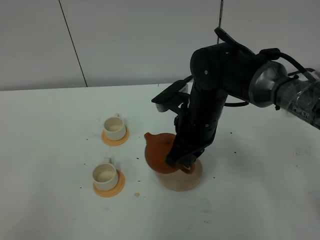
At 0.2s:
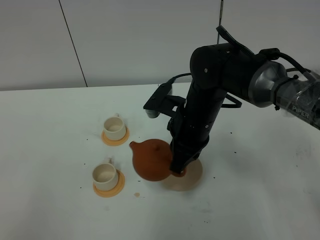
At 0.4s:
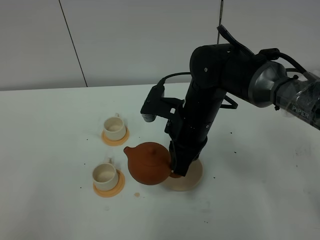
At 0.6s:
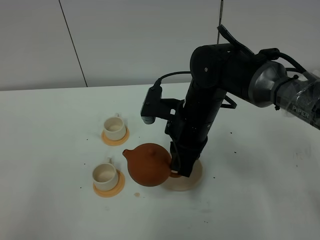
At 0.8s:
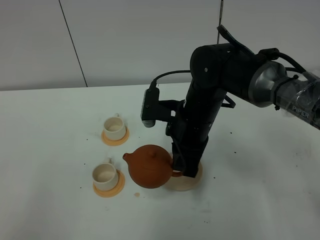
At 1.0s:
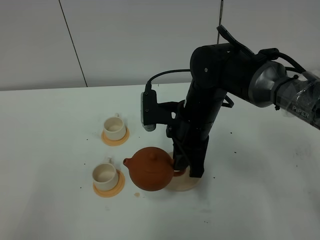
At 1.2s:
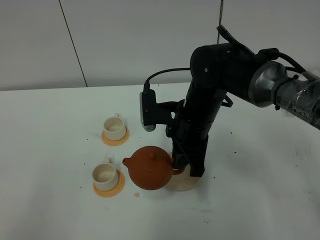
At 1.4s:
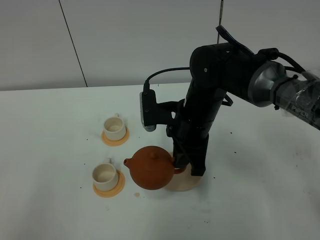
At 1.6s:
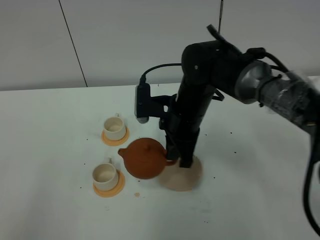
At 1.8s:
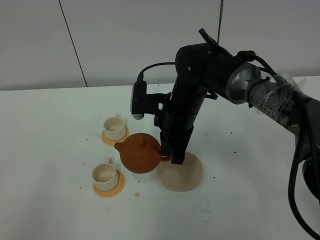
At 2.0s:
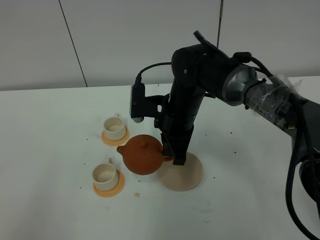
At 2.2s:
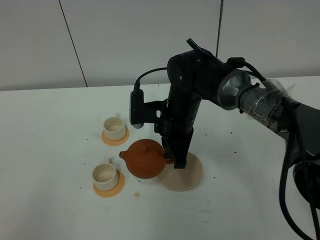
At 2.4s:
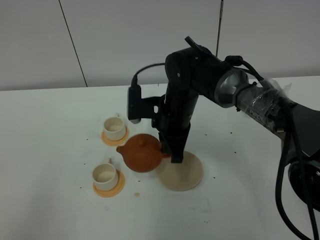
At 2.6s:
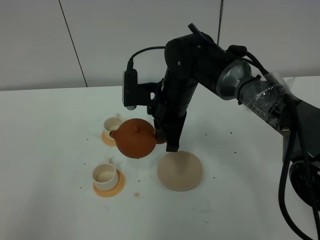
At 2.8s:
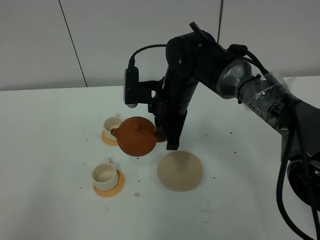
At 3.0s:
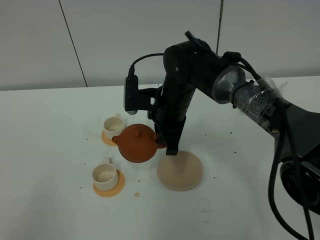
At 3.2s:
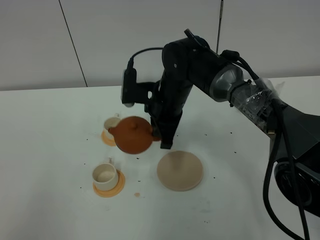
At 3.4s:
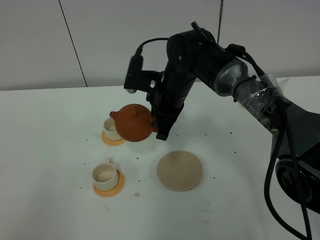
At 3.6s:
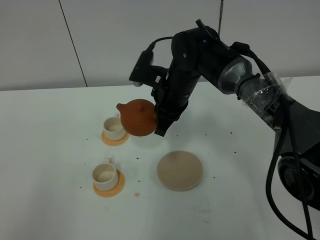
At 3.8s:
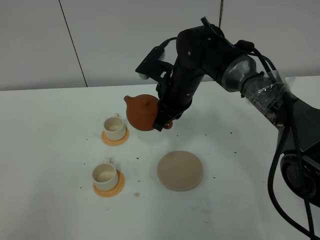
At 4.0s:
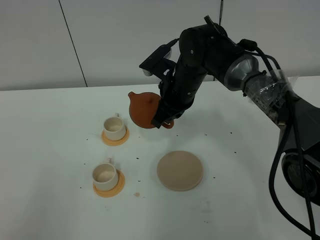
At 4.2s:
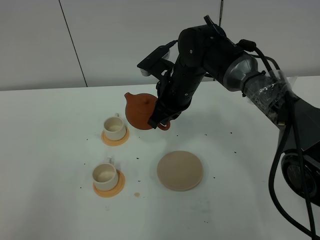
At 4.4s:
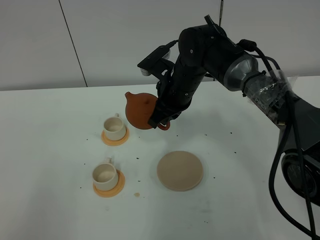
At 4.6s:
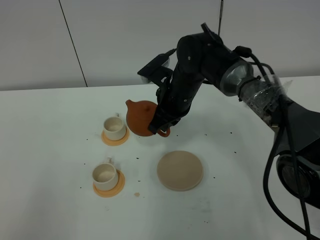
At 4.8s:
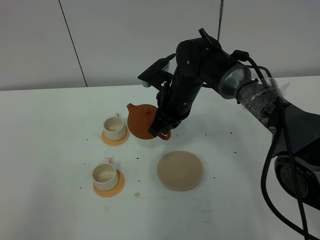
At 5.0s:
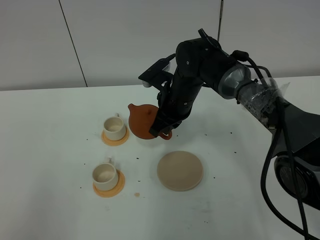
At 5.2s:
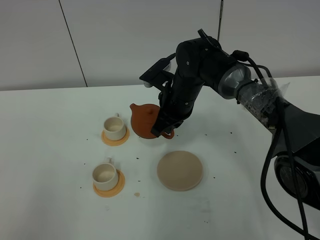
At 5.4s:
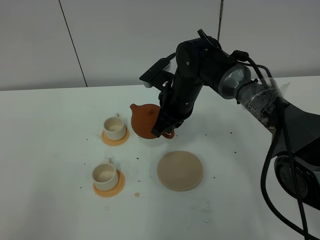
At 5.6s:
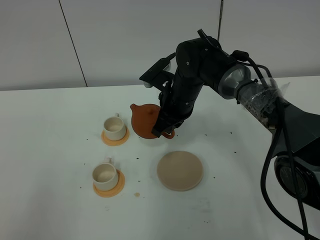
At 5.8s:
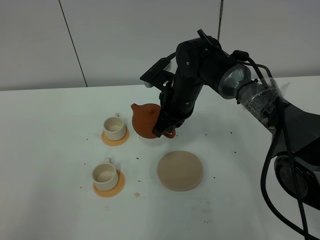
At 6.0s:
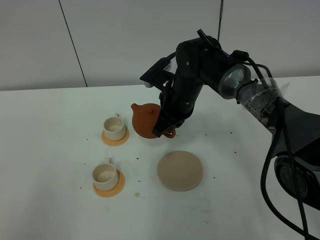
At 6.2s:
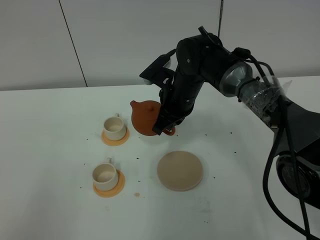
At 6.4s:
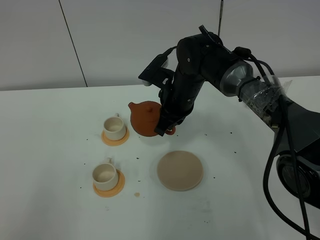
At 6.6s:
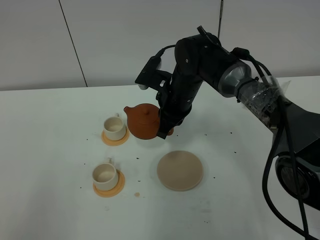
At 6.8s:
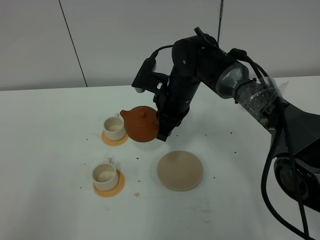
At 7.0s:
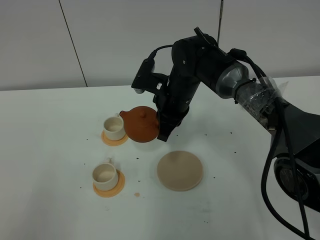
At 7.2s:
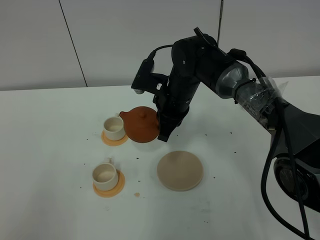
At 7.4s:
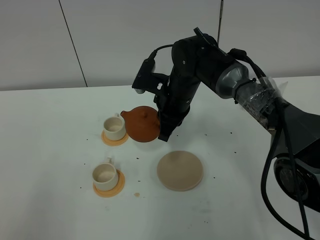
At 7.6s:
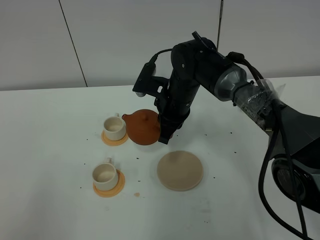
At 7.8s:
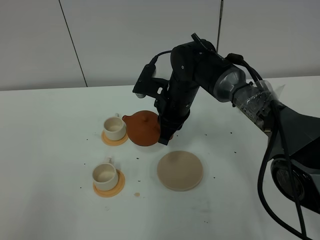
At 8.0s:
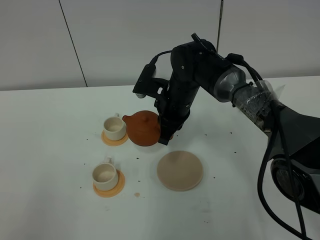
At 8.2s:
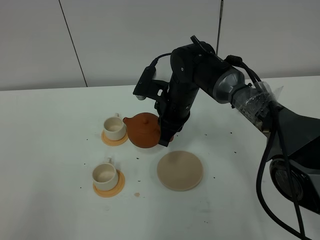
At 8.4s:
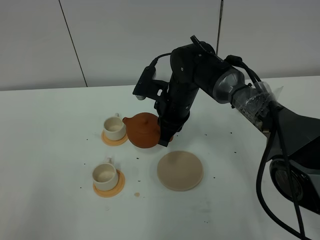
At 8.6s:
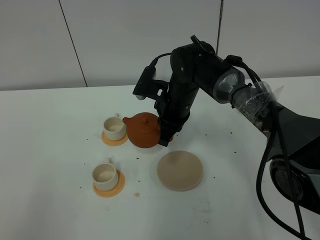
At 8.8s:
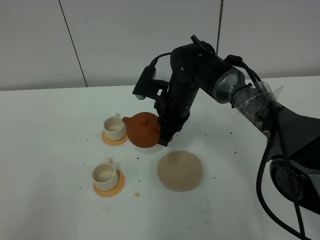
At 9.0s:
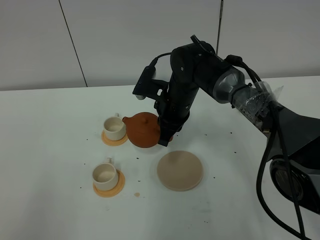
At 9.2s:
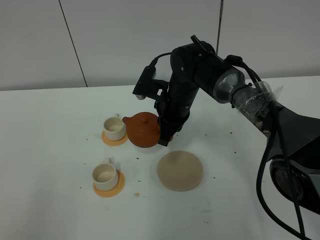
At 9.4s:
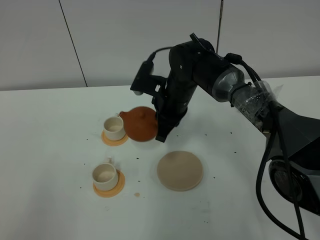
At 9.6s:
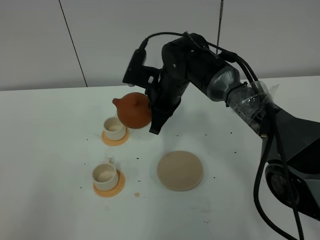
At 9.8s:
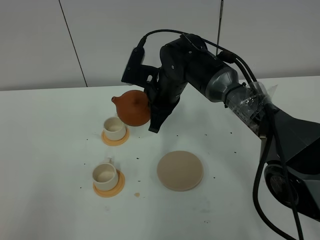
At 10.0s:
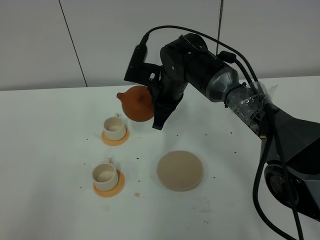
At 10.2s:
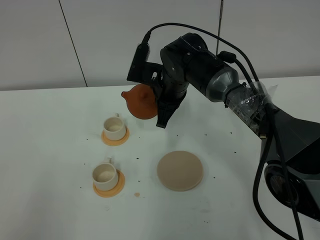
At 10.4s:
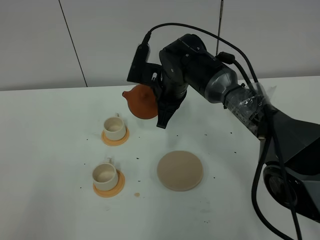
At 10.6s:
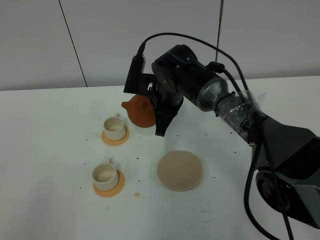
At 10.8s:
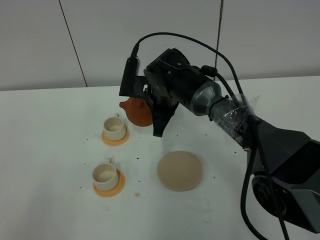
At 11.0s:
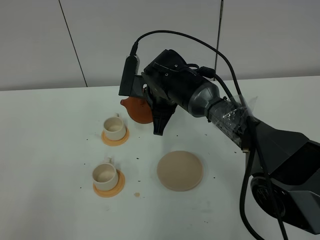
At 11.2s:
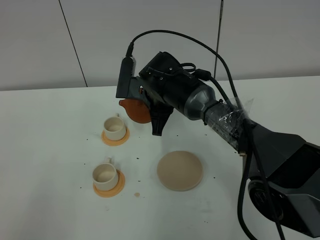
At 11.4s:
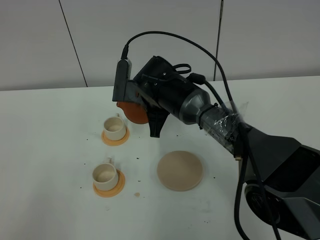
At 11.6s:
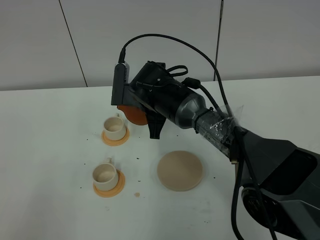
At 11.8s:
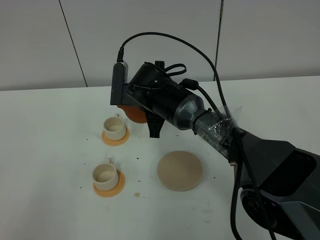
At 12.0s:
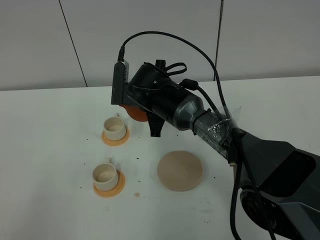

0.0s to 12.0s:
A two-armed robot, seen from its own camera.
Task of the whole recording: grasp the brown teapot and pour the tea into the two white teacups one by one, put the brown teapot back in its original place.
1.6s to 3.0s: The grippers make only small movements.
4.4s to 7.6s: The grippers move only a little.
7.6s to 9.0s: The two grippers keep their place.
9.0s to 10.4s: The grippers move only a little.

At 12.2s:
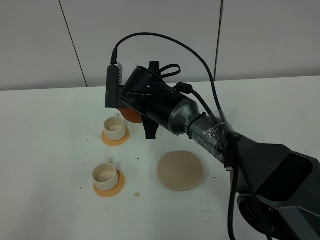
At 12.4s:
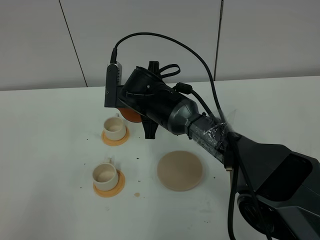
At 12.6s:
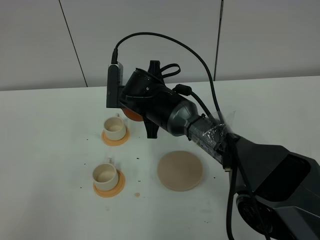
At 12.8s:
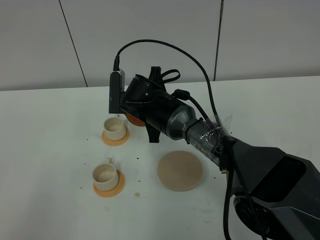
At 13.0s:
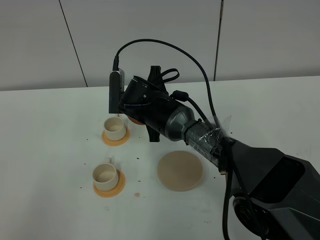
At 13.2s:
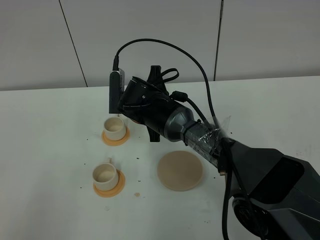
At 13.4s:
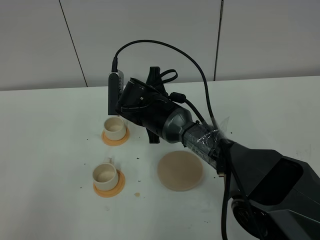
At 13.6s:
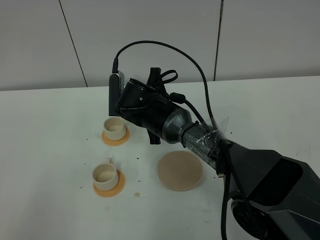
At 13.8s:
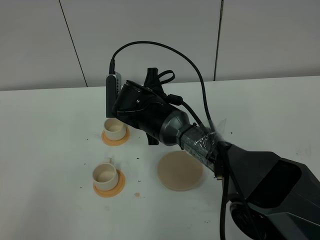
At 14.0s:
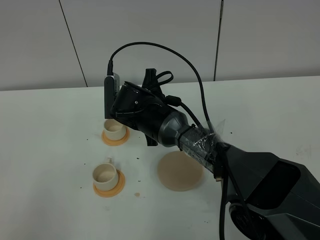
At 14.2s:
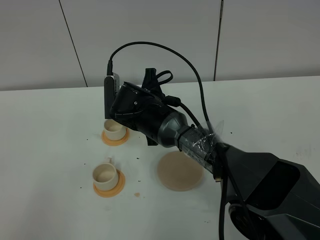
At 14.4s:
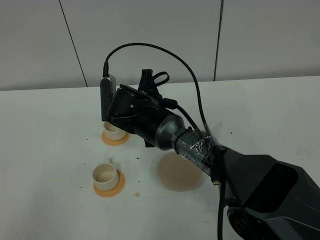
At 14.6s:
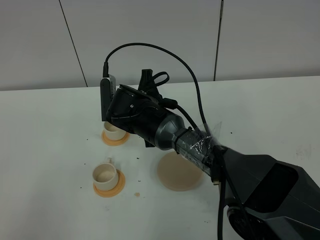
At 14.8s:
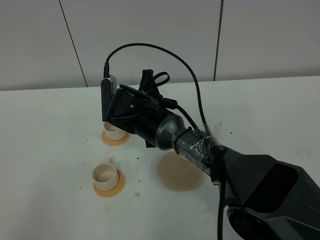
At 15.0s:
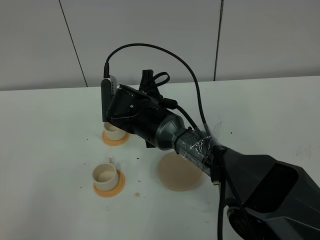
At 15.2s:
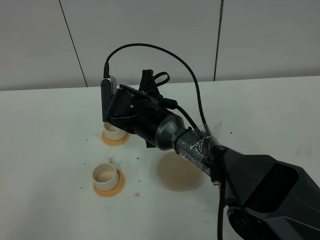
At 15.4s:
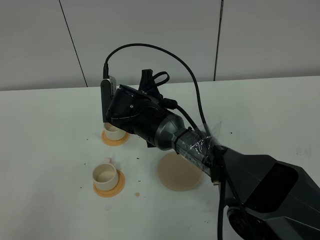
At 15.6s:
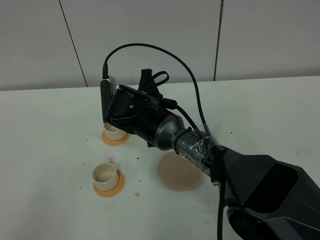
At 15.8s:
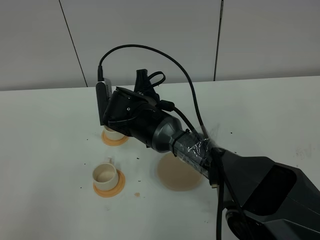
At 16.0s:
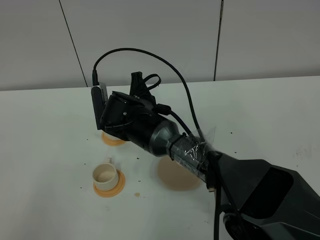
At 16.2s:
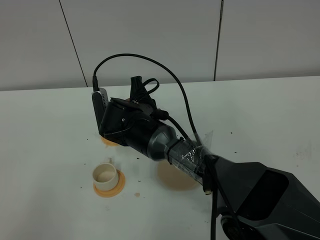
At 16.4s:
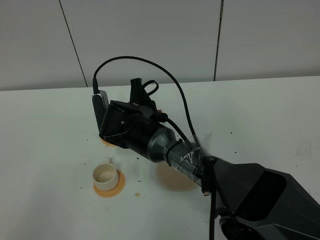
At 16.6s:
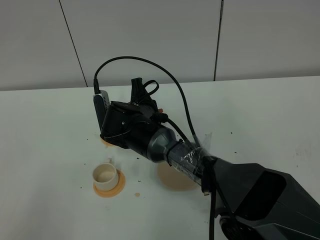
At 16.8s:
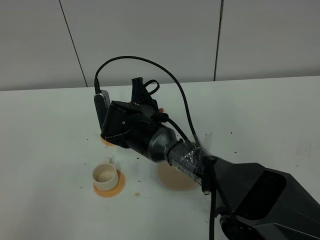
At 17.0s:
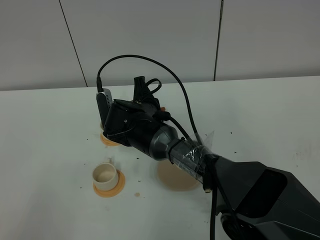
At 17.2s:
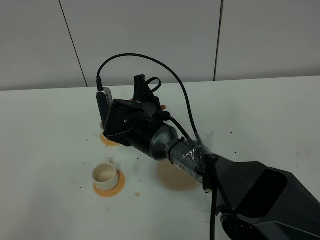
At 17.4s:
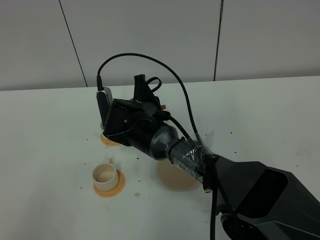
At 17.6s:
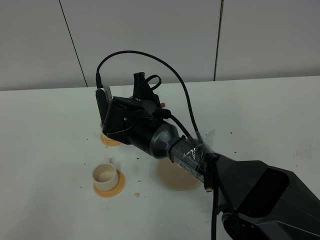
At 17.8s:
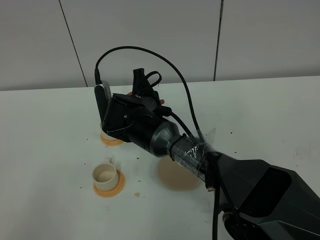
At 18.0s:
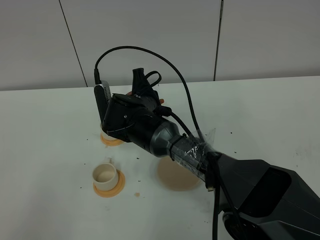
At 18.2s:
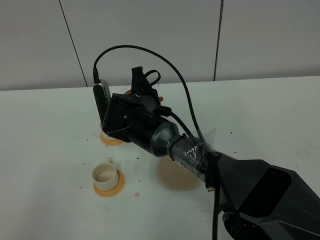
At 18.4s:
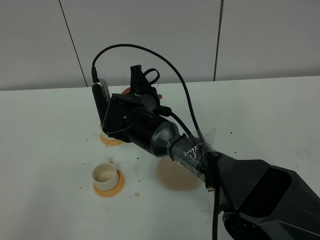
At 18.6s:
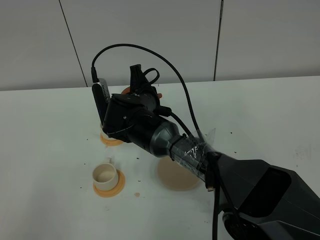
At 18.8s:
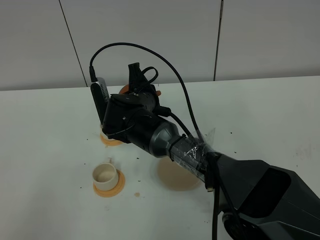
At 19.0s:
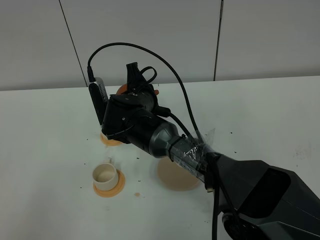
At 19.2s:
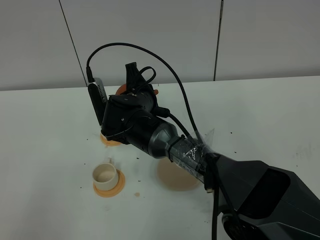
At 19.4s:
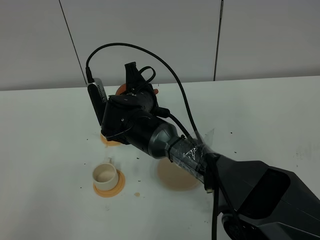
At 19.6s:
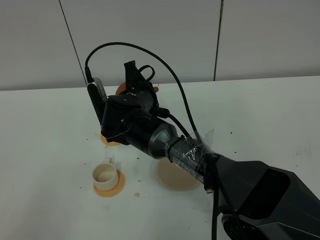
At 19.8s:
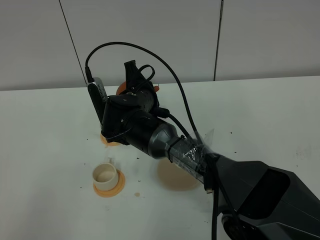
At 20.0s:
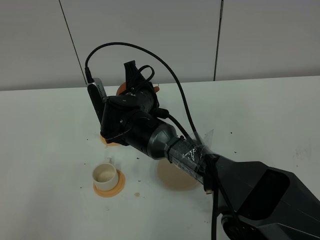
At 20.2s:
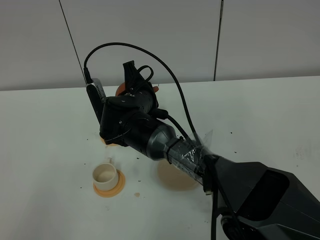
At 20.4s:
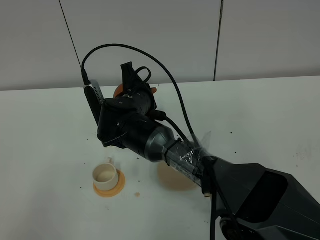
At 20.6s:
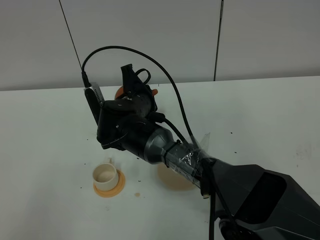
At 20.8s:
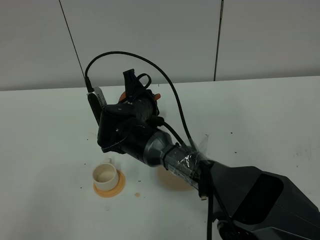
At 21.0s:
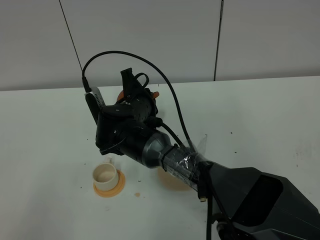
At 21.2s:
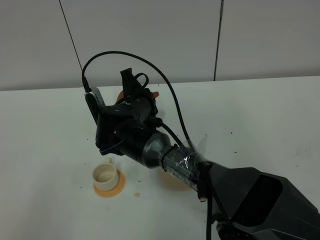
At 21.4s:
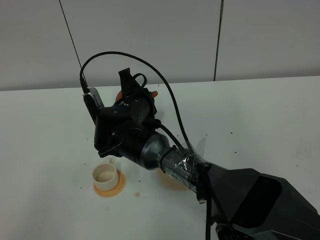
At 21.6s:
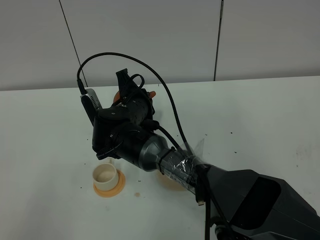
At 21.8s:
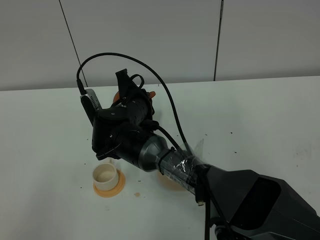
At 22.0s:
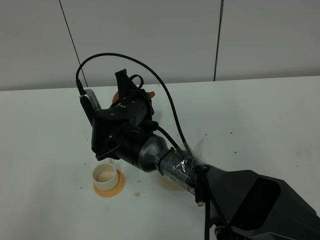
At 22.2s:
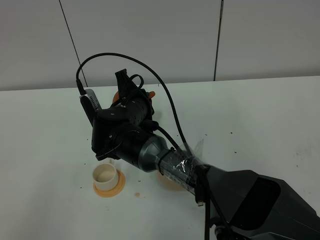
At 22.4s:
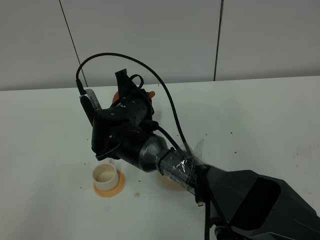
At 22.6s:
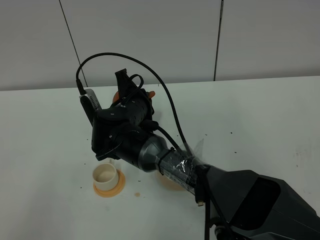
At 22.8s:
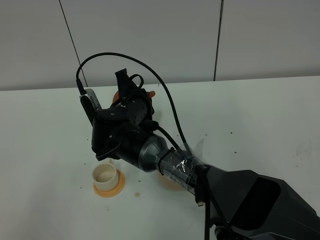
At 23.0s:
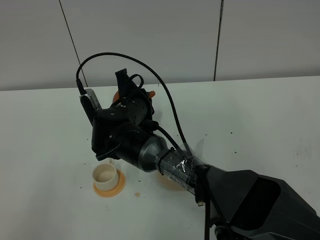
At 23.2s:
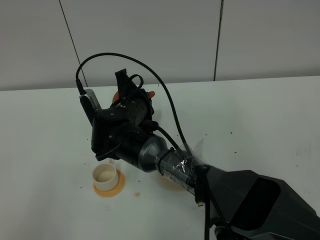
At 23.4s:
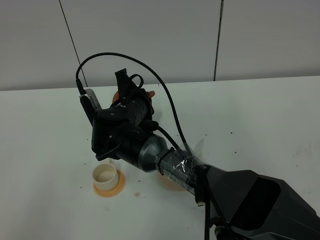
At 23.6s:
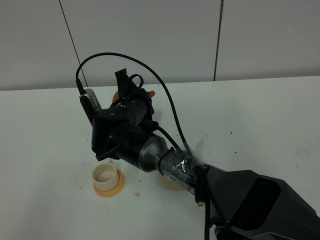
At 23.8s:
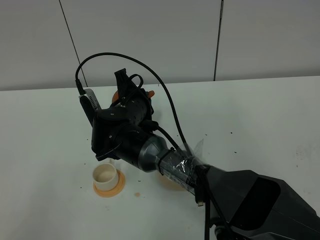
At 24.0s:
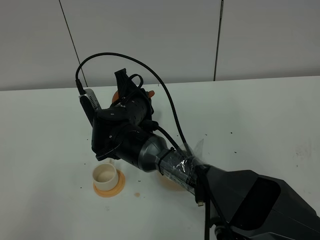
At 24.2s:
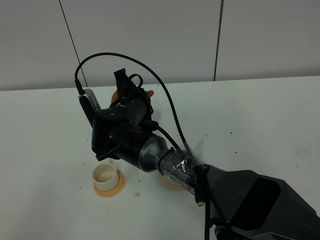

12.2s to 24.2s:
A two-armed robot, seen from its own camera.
Task of the whole recording: grasp the brown teapot and pour the tea into the two white teacups one by one, put the brown teapot back in its original place.
12.2s to 13.8s: The grippers stay close to where they were, moving slightly.
13.8s to 15.2s: Both grippers stay about where they are.
15.2s to 19.8s: The grippers make only small movements.
19.8s to 21.2s: The grippers stay close to where they were, moving slightly.
21.2s to 24.2s: Both grippers stay about where they are.
